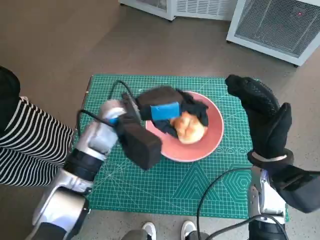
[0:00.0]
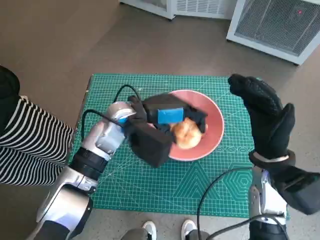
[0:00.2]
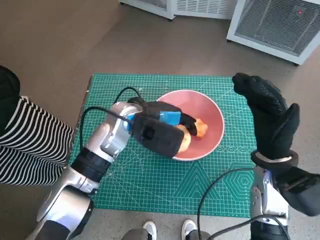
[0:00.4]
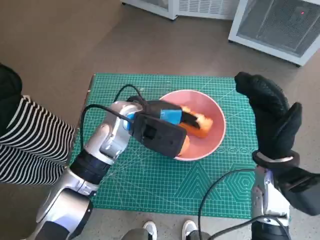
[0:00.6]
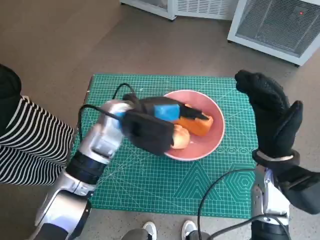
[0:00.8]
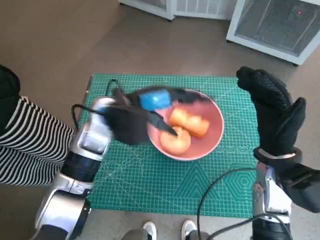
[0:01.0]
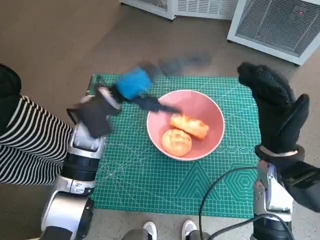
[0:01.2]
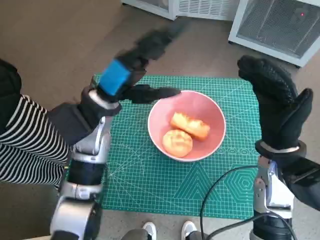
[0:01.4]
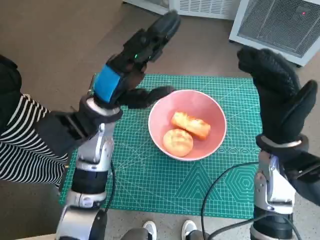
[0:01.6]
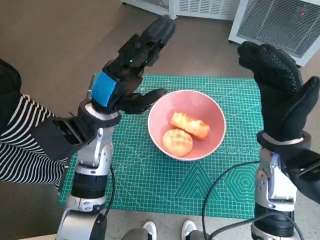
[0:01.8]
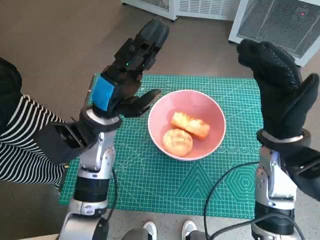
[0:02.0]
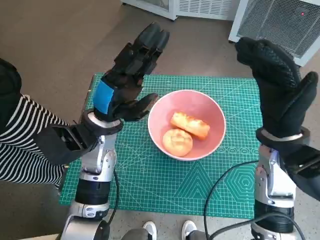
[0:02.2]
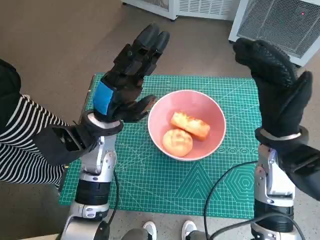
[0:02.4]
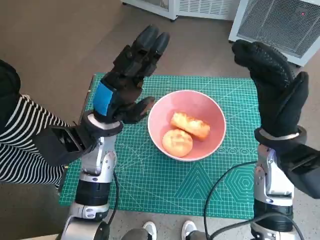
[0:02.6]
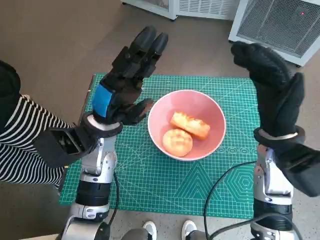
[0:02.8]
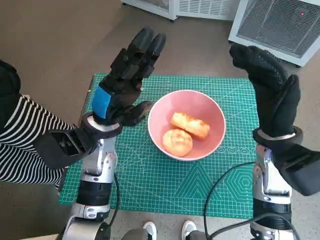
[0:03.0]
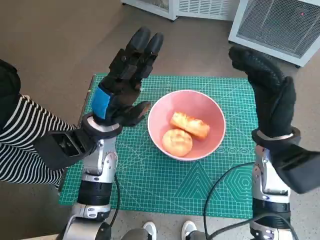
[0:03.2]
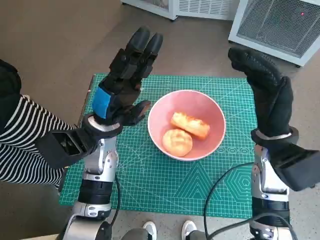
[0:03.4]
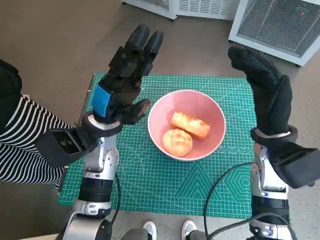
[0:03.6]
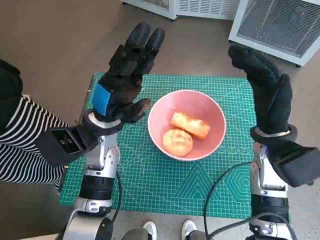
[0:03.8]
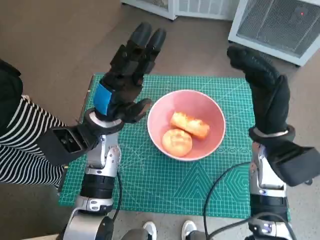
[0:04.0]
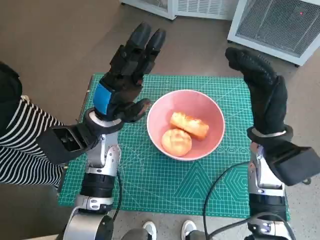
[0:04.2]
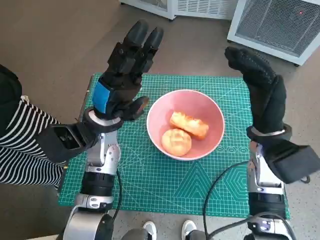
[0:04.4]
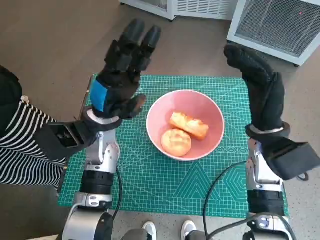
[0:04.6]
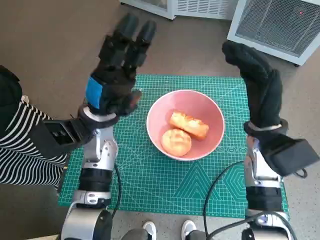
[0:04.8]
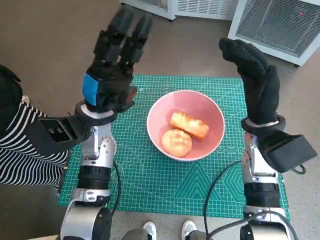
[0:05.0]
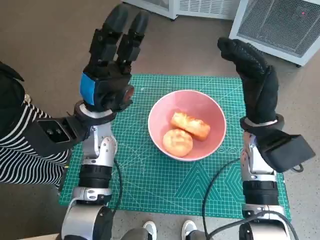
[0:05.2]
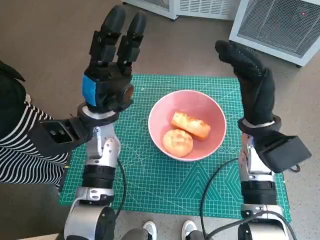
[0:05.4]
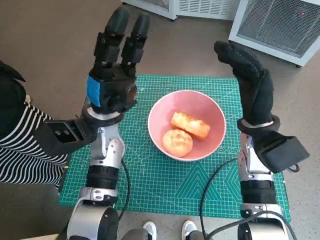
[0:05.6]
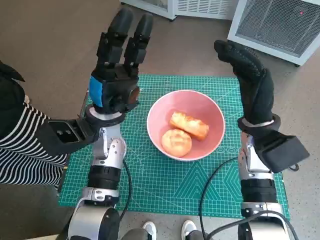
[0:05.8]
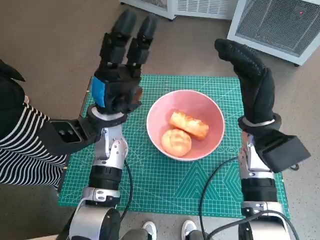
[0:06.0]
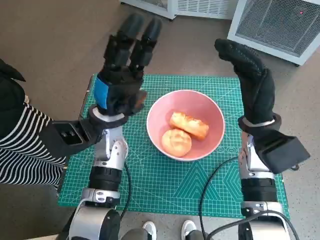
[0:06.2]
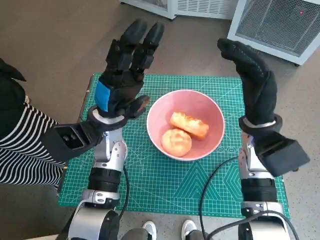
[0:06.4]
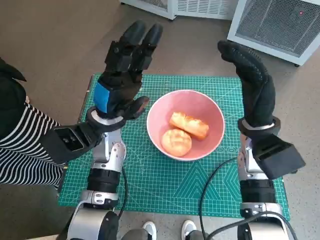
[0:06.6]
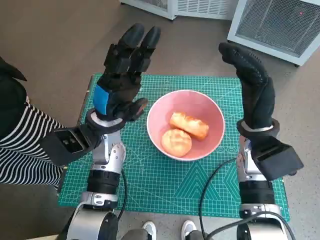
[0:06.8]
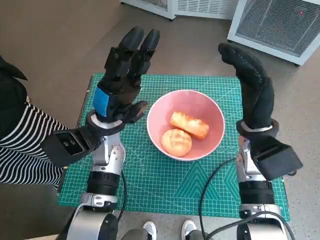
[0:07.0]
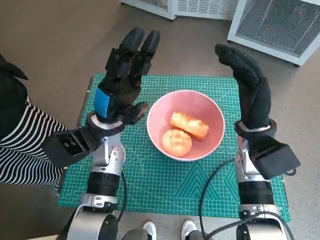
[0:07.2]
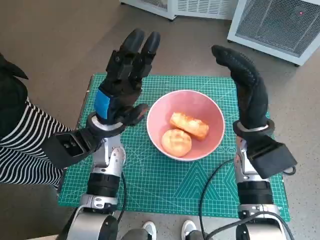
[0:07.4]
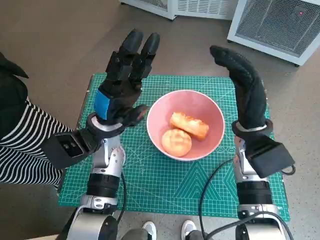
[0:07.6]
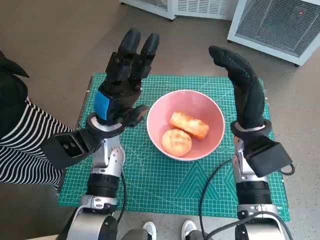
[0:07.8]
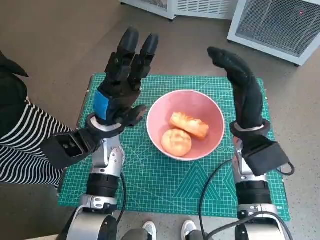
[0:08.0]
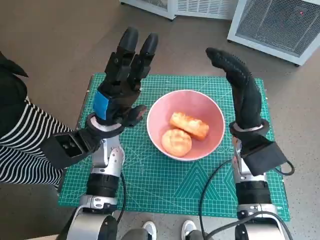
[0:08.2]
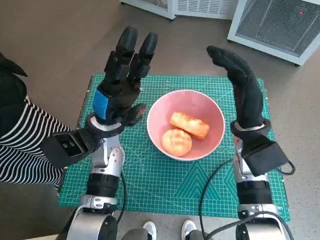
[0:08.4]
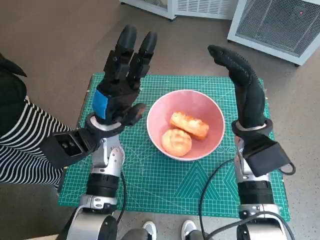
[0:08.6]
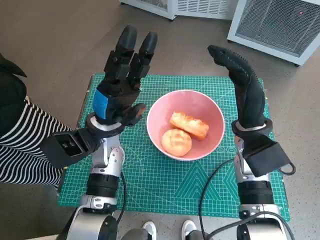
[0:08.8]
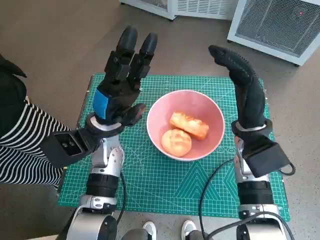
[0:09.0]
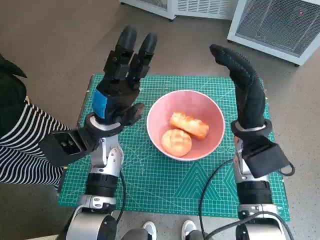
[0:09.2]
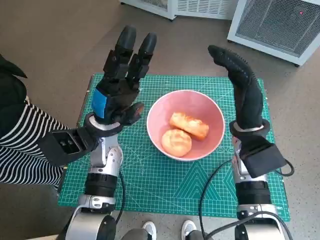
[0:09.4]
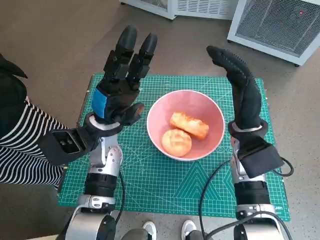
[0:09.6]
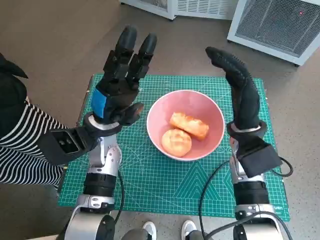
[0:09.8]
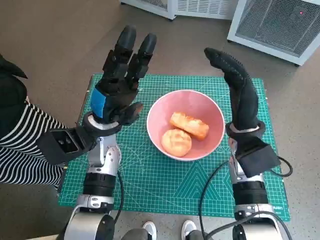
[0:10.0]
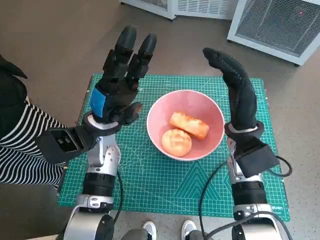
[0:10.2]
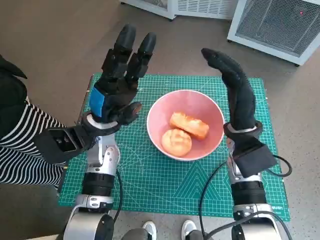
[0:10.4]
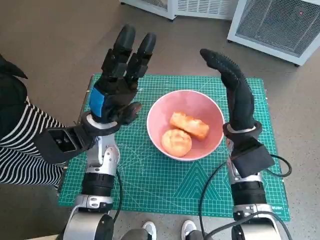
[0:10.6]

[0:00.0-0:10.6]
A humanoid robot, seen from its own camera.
Task of the whole recording: Push the bowl into the center of the table and put the bread into the bowl.
0:07.6 to 0:09.0: The two hands keep their place.
0:09.0 to 0:10.6: There are only small adjustments of the hands.
